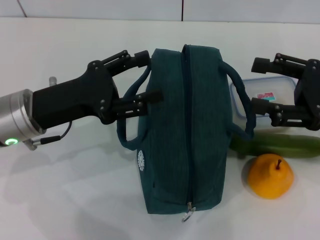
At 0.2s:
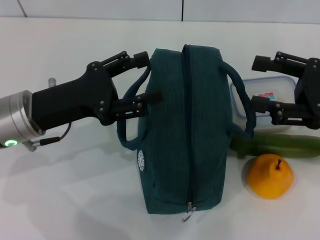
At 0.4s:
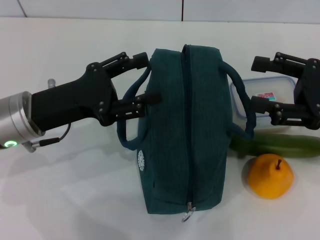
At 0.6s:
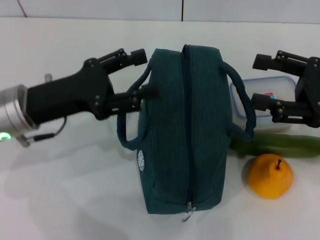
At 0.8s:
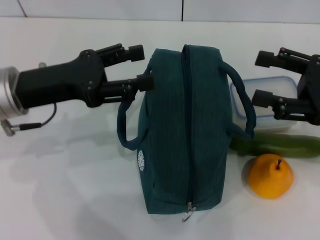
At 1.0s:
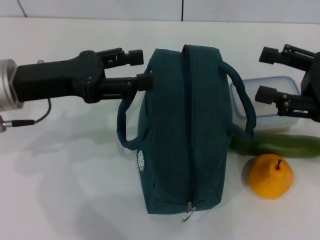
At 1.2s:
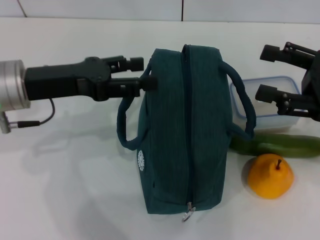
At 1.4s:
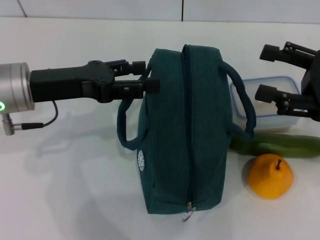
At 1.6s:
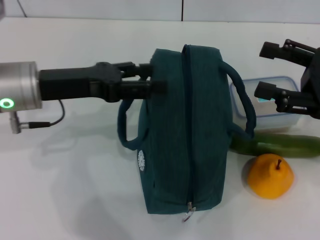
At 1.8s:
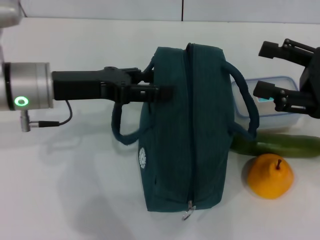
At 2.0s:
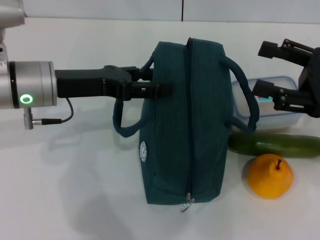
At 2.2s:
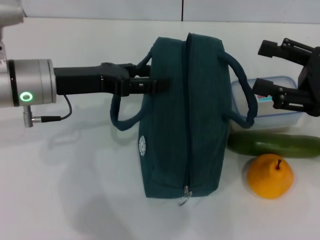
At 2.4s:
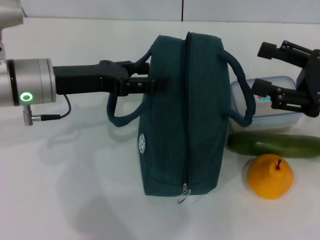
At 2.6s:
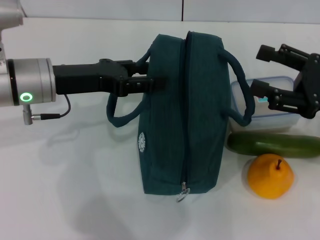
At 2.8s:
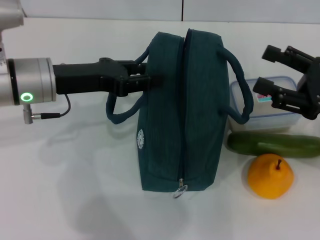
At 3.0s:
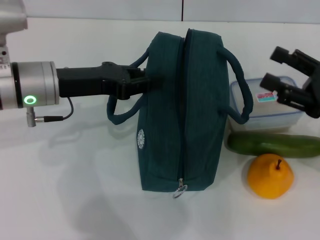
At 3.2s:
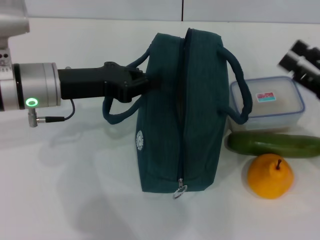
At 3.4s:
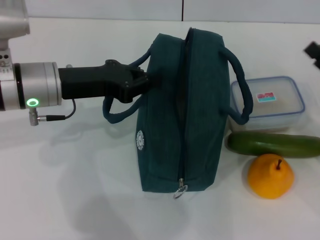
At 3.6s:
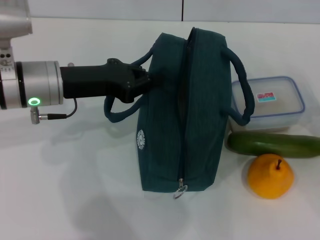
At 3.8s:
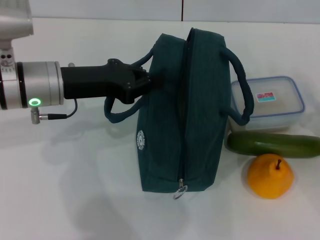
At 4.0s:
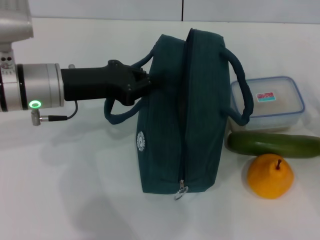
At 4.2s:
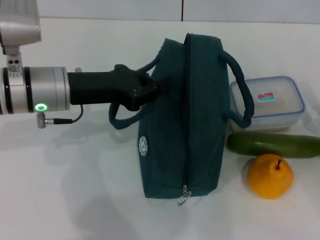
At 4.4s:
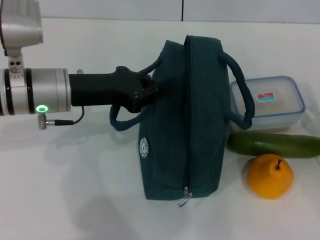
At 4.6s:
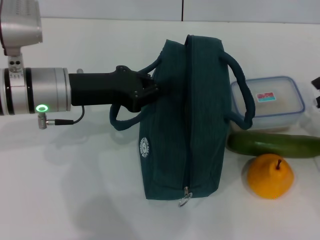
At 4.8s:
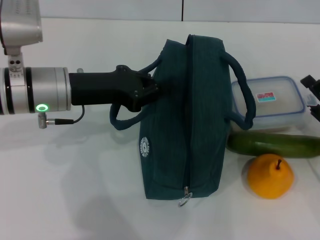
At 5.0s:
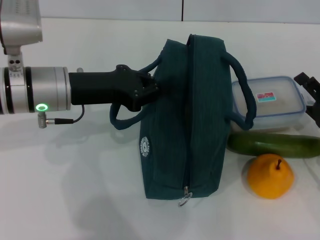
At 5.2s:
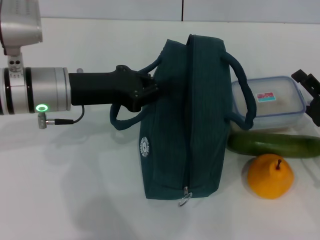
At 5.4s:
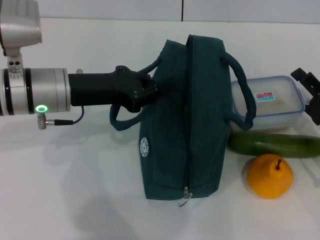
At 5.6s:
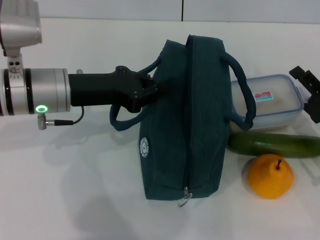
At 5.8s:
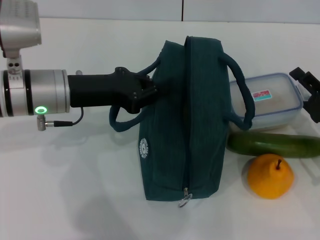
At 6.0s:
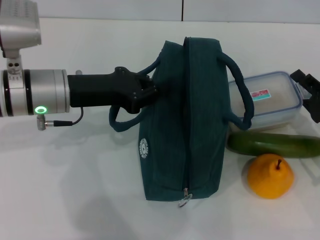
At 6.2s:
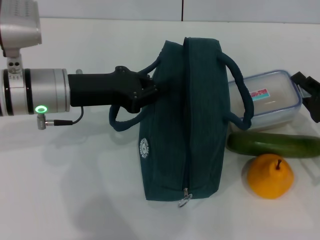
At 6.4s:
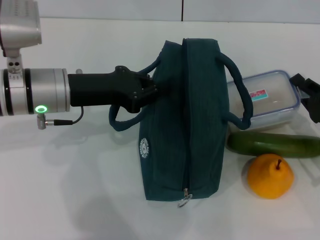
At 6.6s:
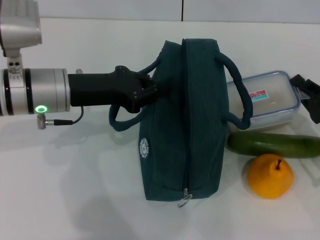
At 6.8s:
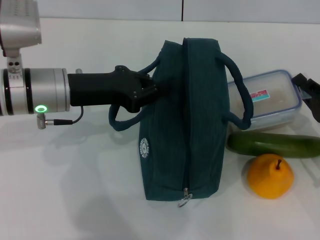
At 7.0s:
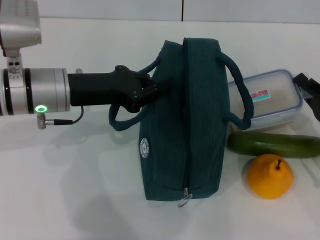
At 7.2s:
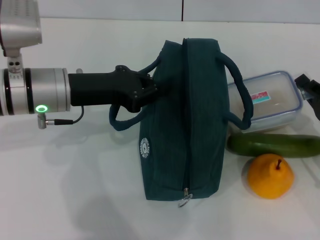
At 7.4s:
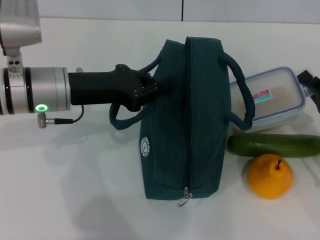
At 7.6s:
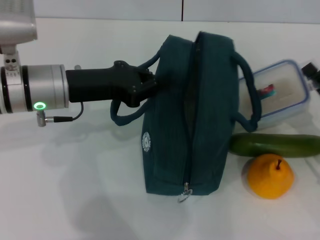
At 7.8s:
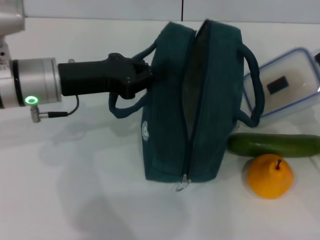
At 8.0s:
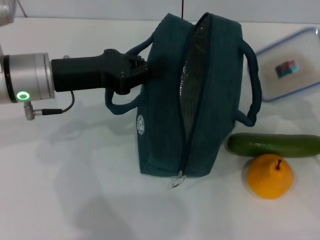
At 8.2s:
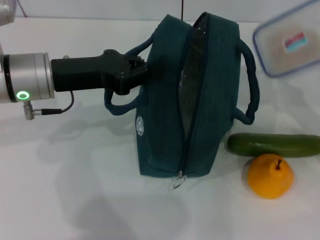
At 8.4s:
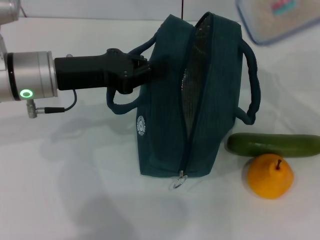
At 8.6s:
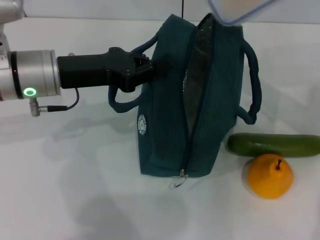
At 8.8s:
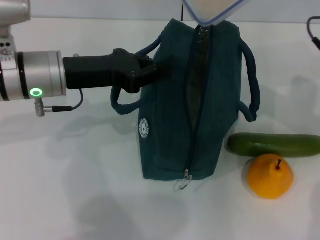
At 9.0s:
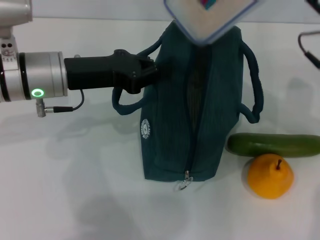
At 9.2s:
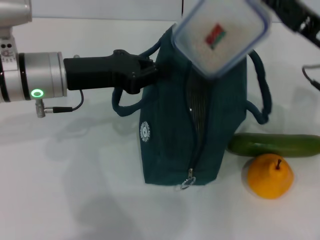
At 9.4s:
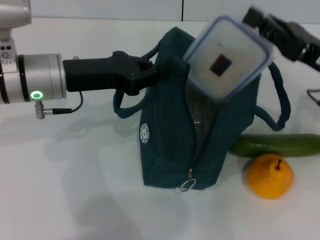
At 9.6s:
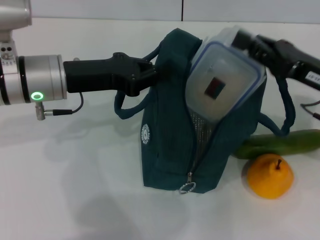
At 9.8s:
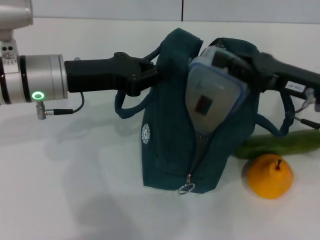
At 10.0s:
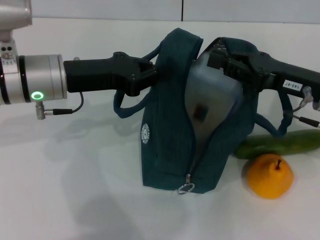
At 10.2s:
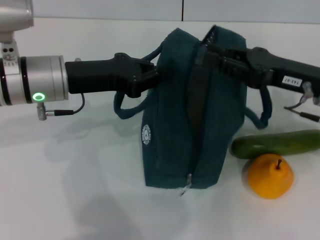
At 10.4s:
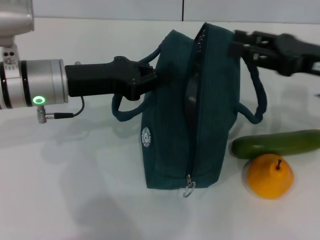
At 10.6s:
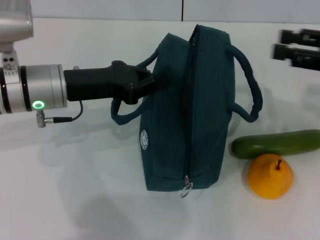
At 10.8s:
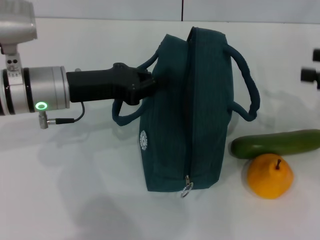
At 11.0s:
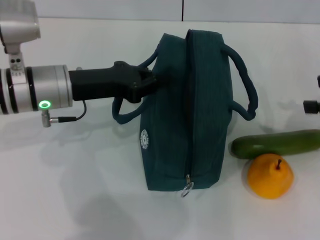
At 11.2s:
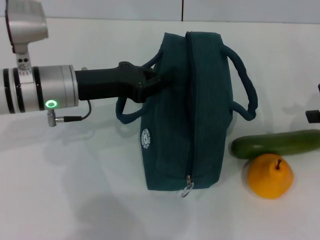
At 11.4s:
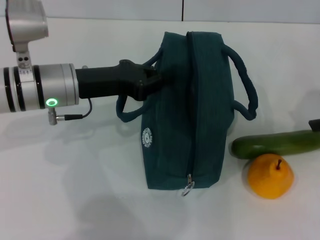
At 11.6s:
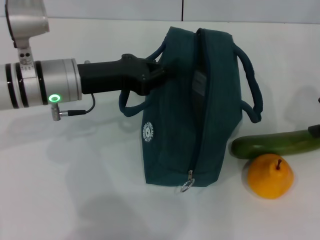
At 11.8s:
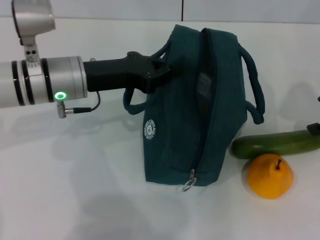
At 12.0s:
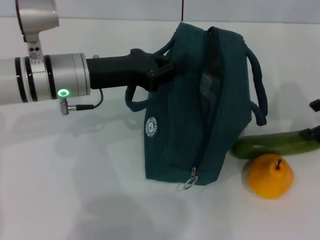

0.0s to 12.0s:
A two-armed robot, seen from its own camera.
Step, 0.0s to 3.8s: Hold the lunch bag with your left hand.
Step, 4.0s to 7.2s: Pick up the lunch box with your right hand.
Step, 7.4s to 10.4s: Place the lunch box into the lunch bag with your right hand.
1.6s to 3.0s: The left gripper closes.
3.0s to 4.4s: The right gripper goes approximately 10 cm downward. The left gripper closes its fingers.
4.4s to 6.0s: The grippers stay close to where they were, moving slightly.
6.0s to 7.6s: The right gripper closes up.
7.6s to 9.0s: The right gripper travels upward, forward and to the left by approximately 15 cm.
10.4s to 12.0s: The right gripper opens.

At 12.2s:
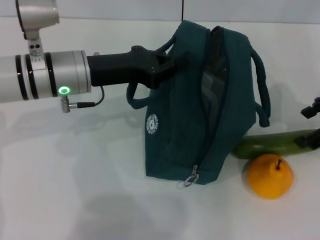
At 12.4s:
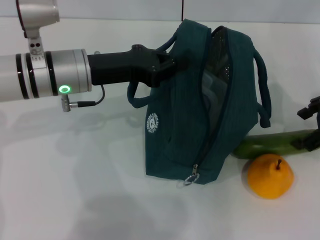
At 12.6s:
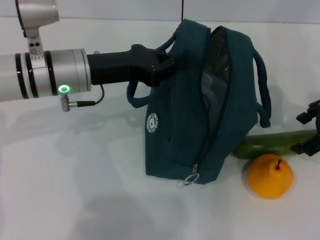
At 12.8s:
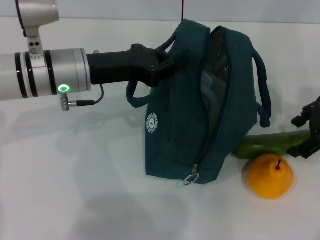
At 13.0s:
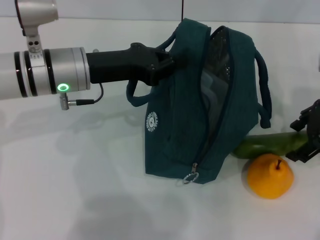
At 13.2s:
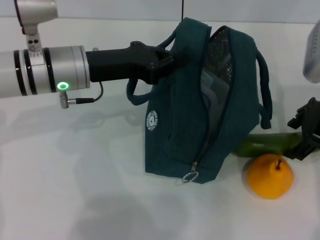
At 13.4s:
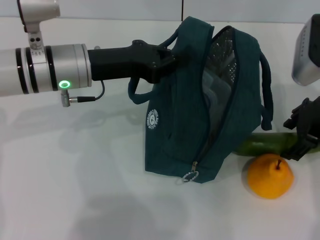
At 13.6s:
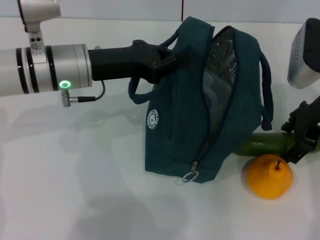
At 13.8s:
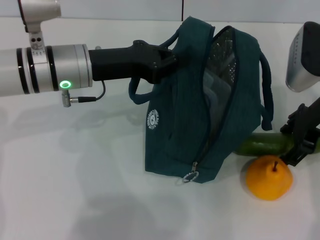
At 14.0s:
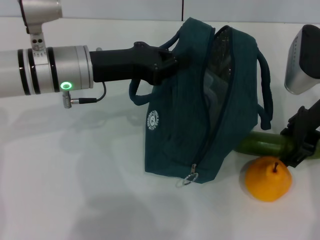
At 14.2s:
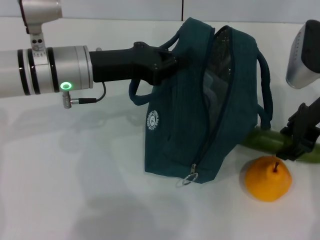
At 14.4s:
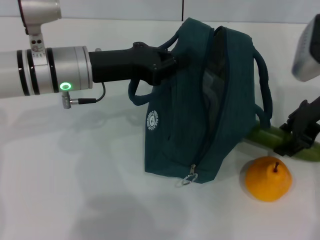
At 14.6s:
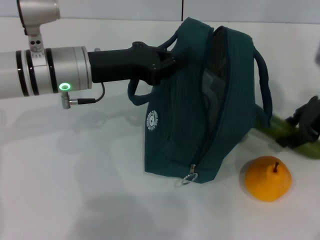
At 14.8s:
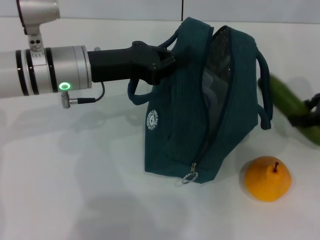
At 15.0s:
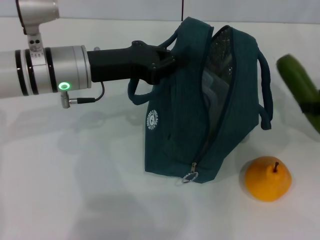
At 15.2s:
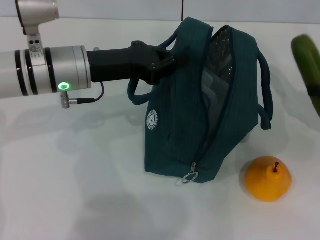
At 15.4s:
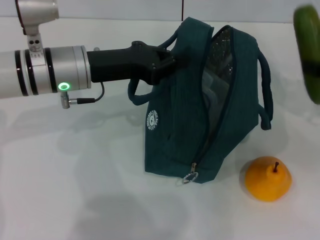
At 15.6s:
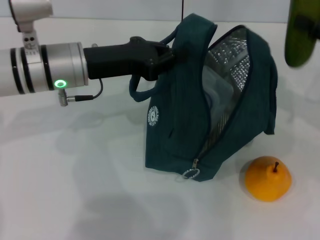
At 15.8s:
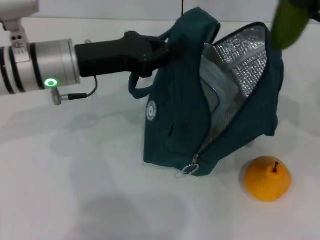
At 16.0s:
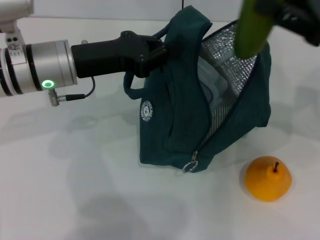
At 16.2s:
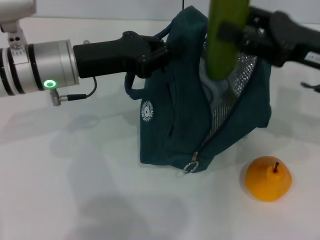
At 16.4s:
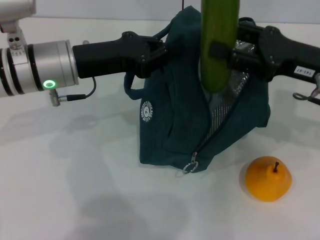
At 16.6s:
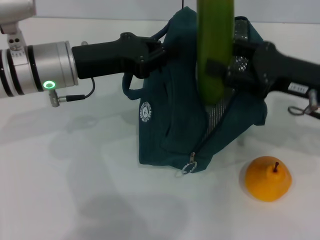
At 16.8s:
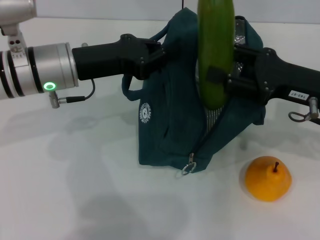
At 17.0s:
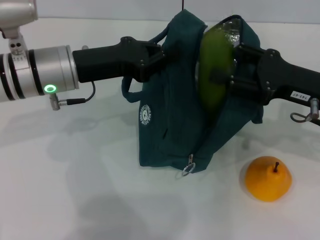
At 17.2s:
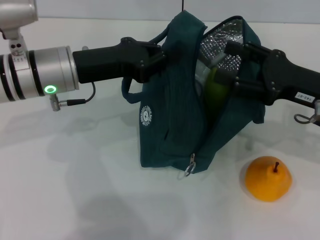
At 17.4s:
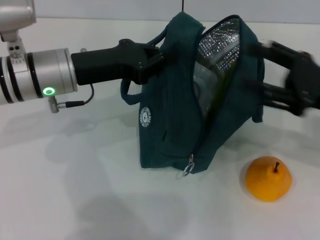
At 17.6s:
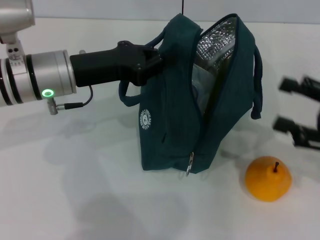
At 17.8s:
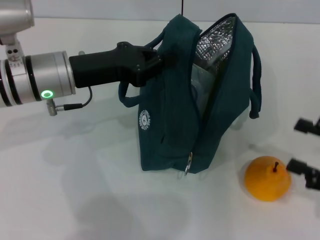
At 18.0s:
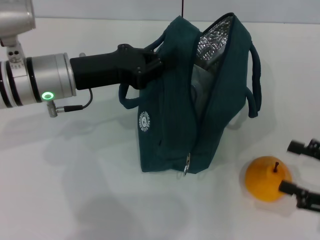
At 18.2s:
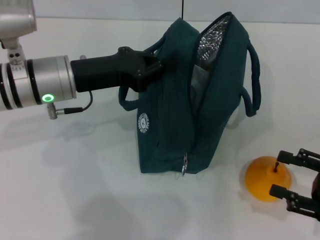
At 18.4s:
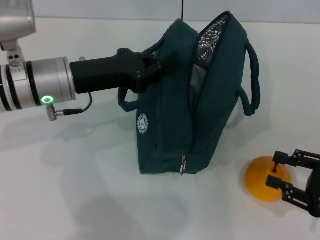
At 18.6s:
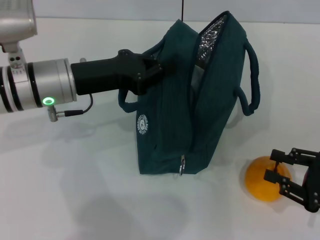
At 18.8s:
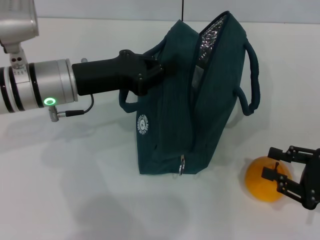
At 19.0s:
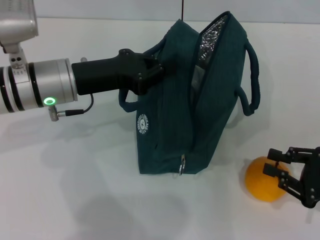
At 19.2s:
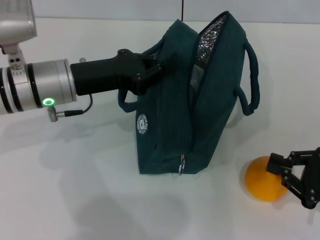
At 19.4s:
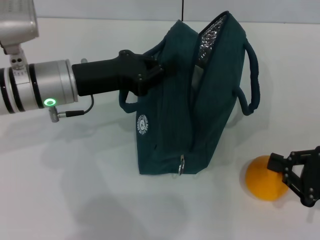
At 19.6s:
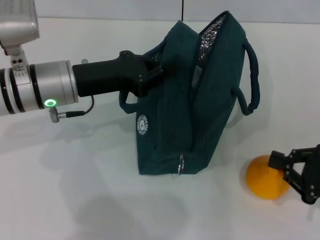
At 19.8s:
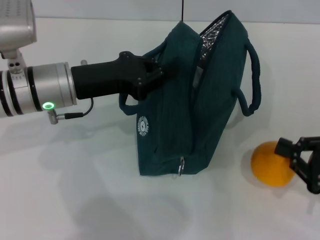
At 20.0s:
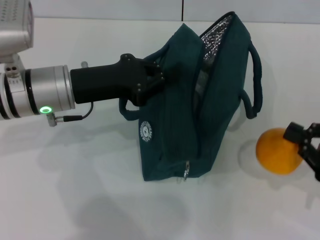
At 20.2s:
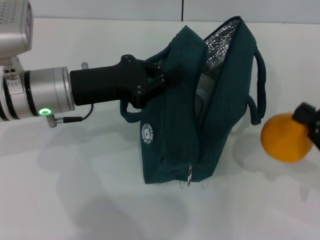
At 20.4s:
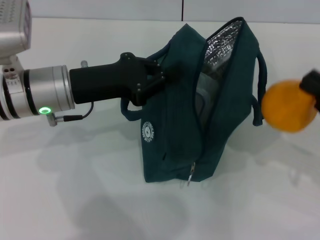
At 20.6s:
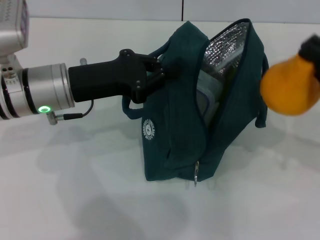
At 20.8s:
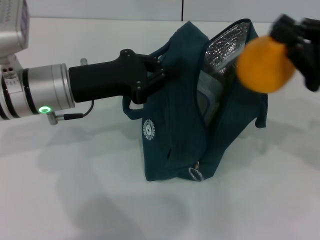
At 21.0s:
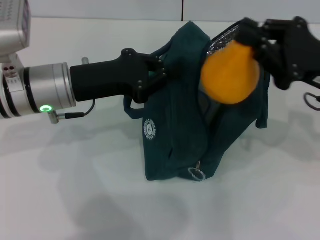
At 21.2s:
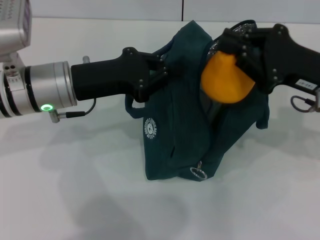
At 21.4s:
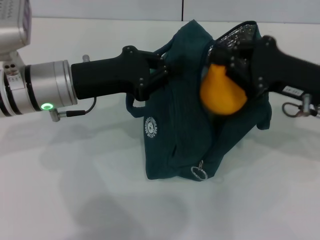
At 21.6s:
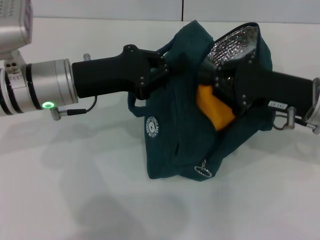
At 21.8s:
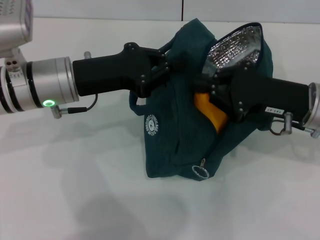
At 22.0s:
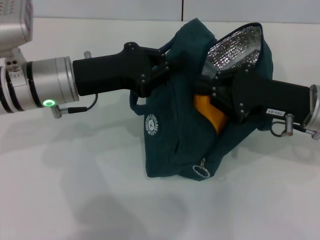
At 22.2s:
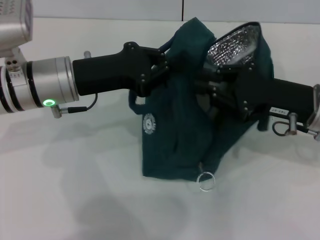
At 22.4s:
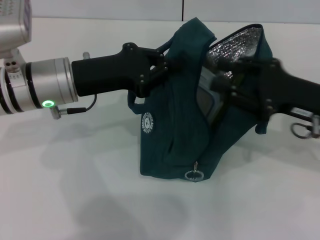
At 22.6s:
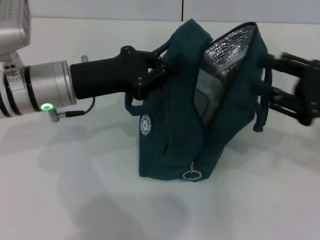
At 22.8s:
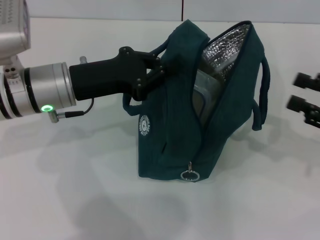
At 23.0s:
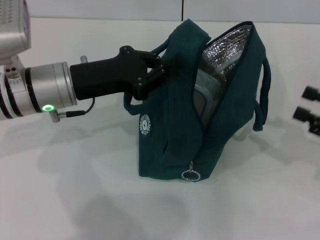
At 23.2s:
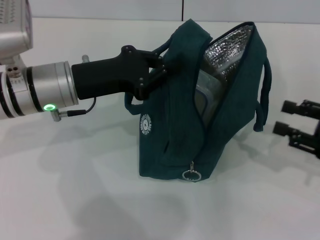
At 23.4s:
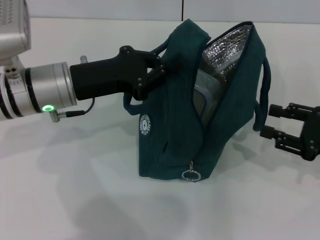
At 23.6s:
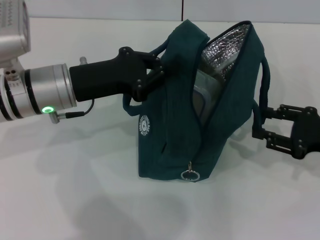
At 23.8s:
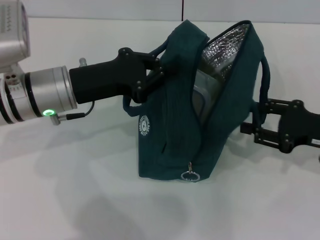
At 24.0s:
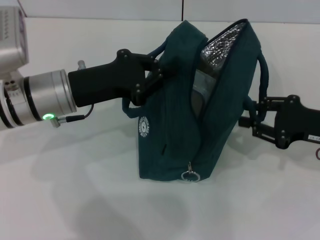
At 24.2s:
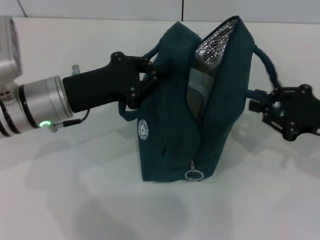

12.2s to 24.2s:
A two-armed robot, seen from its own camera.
Step, 12.2s to 14.2s: Pick up the cucumber with your right hand.
Step, 14.4s to 17.2s: Put the cucumber into the lunch bag with your right hand.
Step, 17.4s to 19.2s: Grab the pear with your right hand.
12.2s to 13.8s: The right gripper moves to the left, approximately 5 cm.
13.8s to 15.2s: The right gripper travels to the right by roughly 15 cm.
15.2s to 16.6s: The right gripper moves to the left, roughly 10 cm.
16.6s to 18.2s: The right gripper travels backward, to the right and downward by about 20 cm.
18.2s to 19.8s: The right gripper closes.
19.8s to 21.2s: The right gripper goes some 15 cm forward, to the left and upward.
21.2s to 22.6s: The right gripper moves to the right, some 5 cm, and opens.
